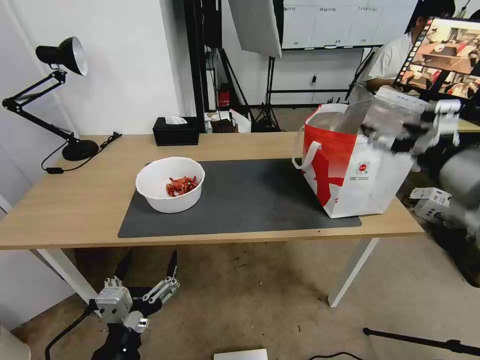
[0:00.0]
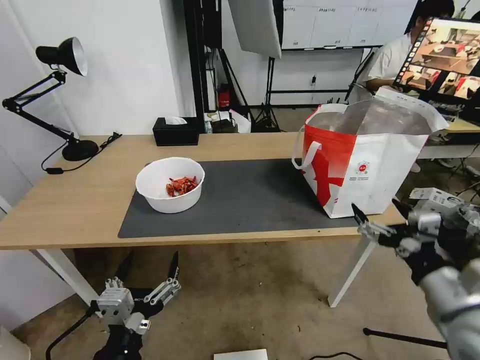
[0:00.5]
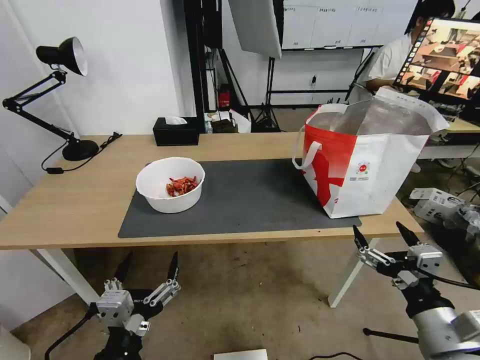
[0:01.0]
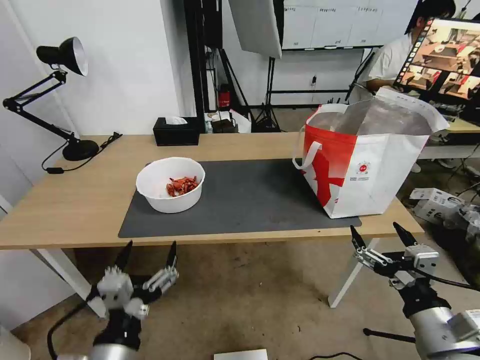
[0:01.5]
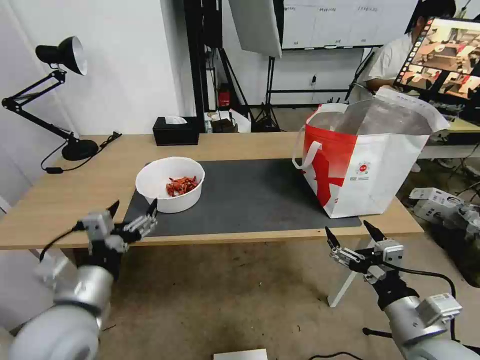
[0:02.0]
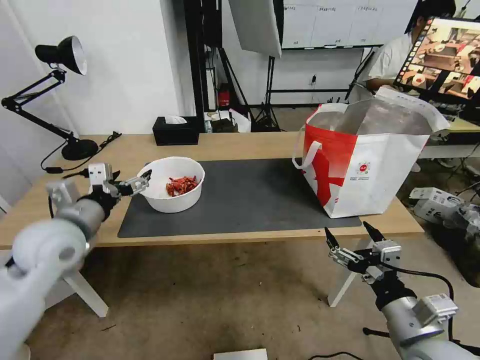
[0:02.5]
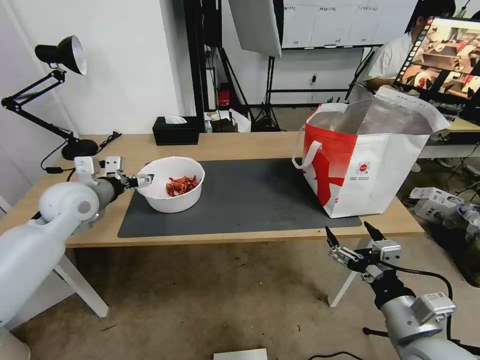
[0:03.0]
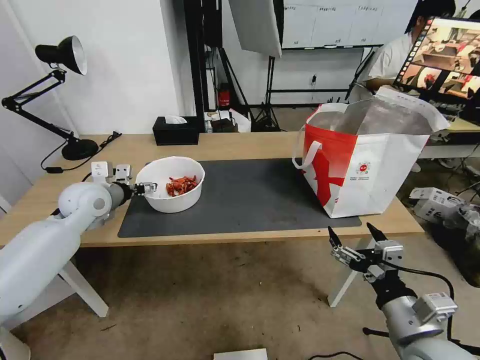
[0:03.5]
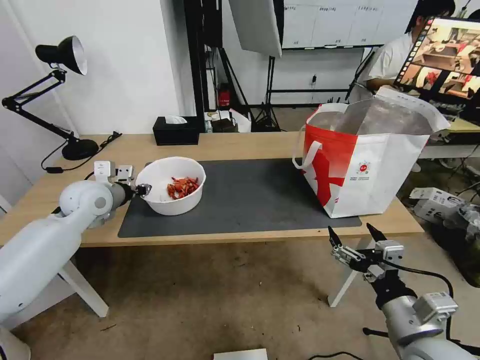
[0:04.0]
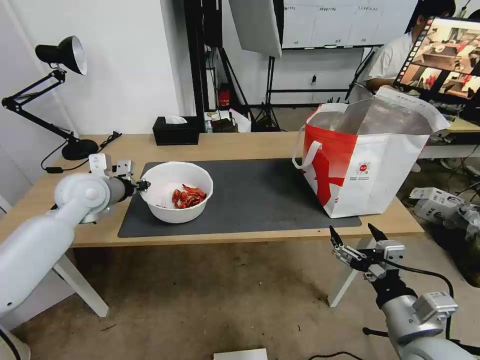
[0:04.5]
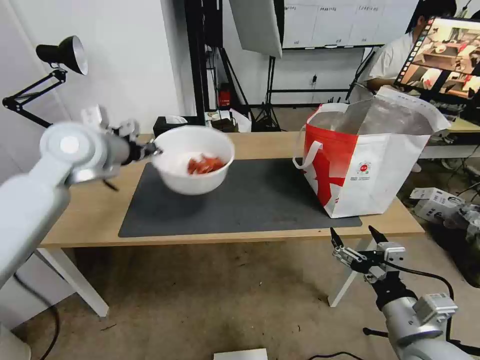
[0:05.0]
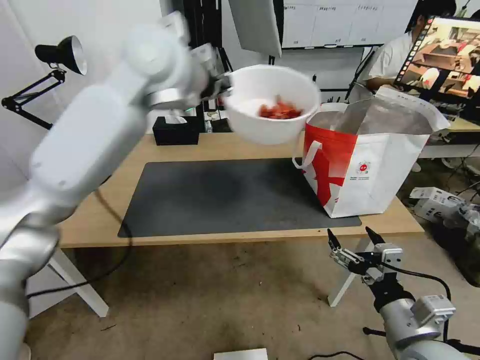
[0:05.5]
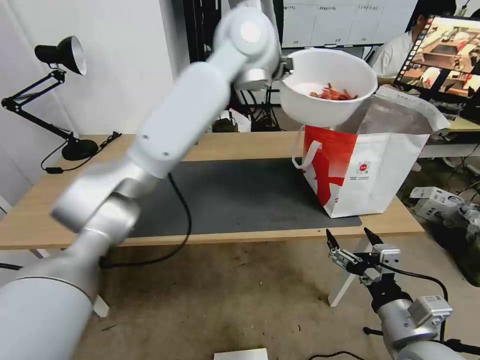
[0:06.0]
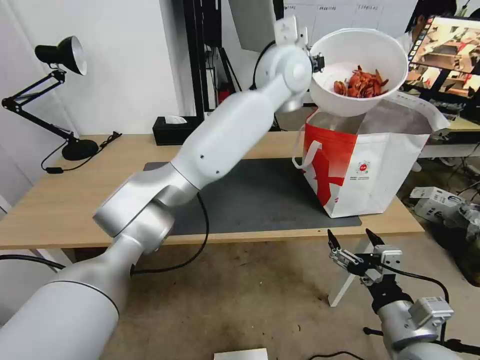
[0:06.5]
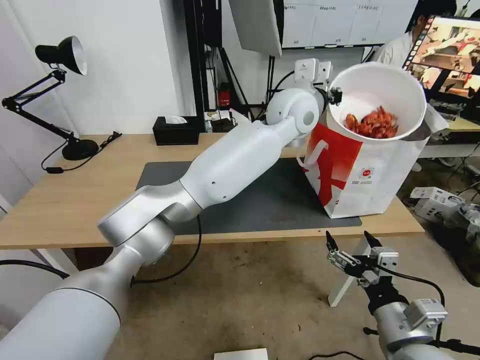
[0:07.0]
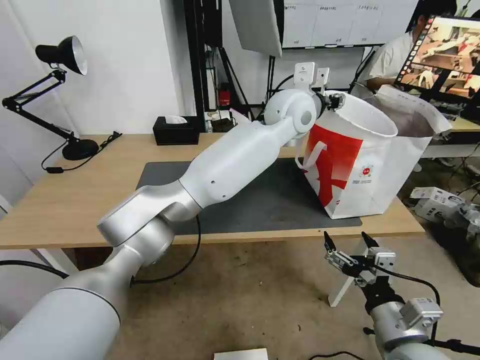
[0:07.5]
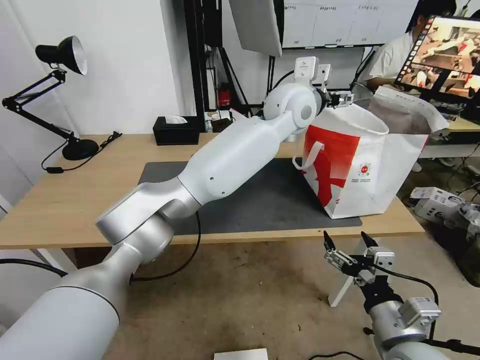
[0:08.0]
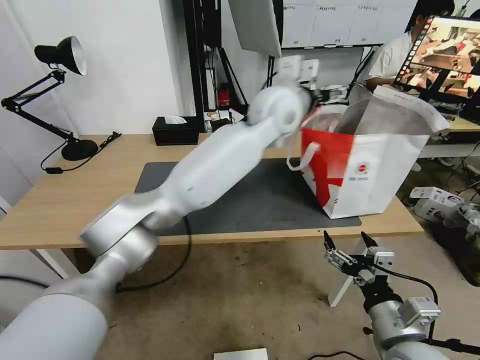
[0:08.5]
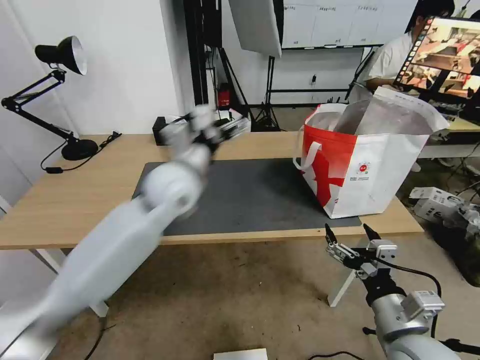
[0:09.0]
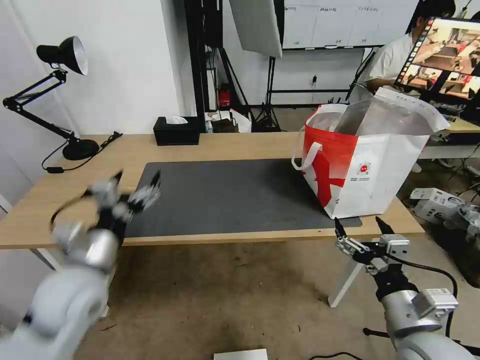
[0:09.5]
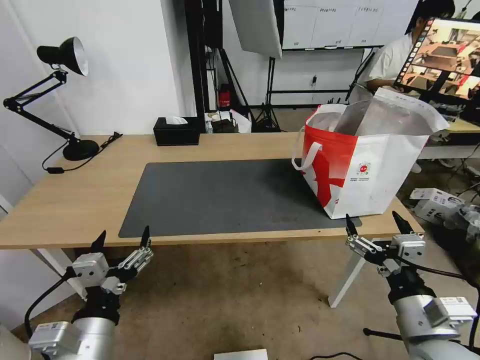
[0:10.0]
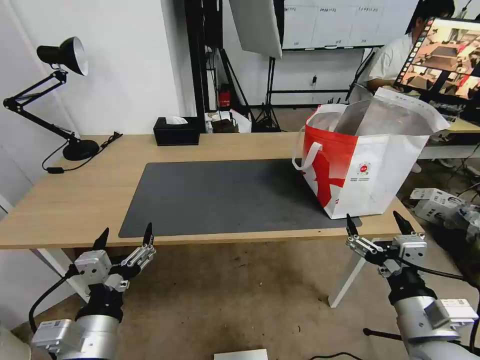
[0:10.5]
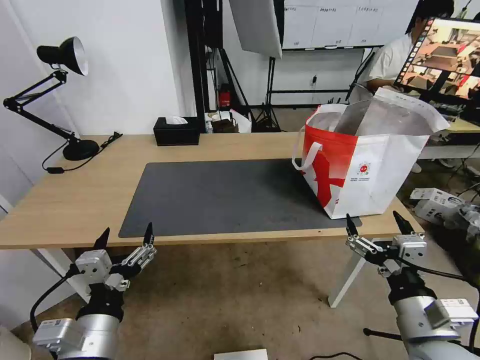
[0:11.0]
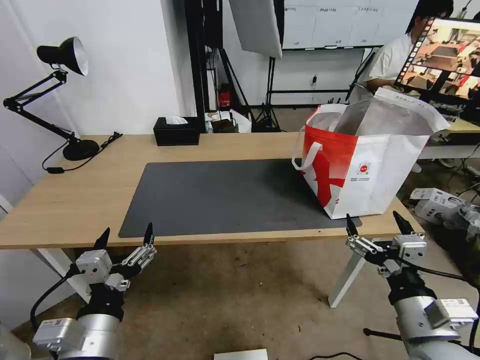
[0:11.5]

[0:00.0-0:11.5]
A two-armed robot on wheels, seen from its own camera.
Task of the whole recording: Pick up the trash from the table and place it into the takeout bag.
0:00.0 to 0:02.0: The left gripper heads forward, to the left and upward, covering roughly 15 cm, while the right gripper is displaced downward and backward by roughly 25 cm.
0:02.0 to 0:04.0: The left gripper heads forward, covering roughly 25 cm, and closes its fingers.
0:04.0 to 0:06.0: The left gripper is displaced to the right and upward by approximately 40 cm.
0:06.0 to 0:07.5: The left gripper moves downward and to the right, about 15 cm, and opens its fingers.
0:07.5 to 0:09.5: The left gripper heads to the left, backward and downward, covering roughly 50 cm, and opens up.
0:09.5 to 0:11.5: The left gripper heads backward and to the right, covering roughly 10 cm.

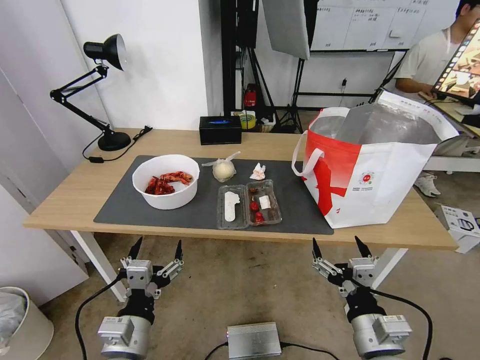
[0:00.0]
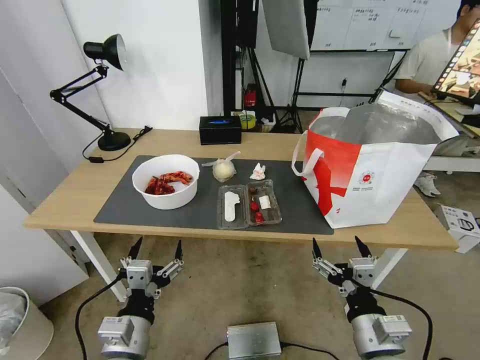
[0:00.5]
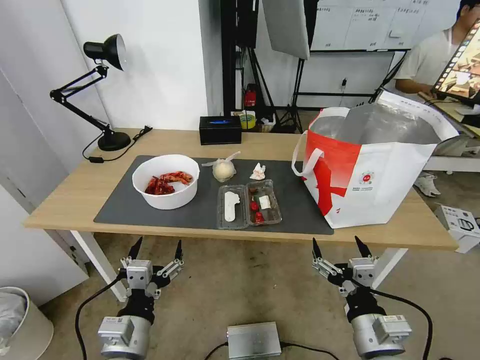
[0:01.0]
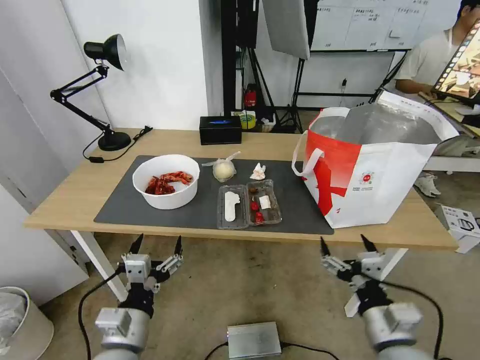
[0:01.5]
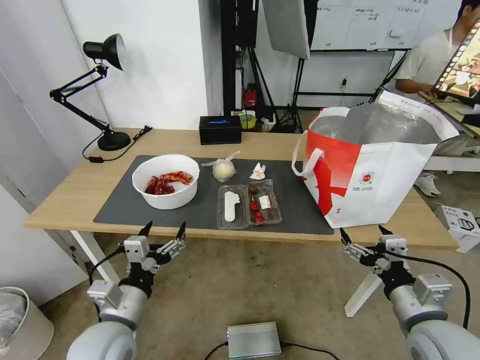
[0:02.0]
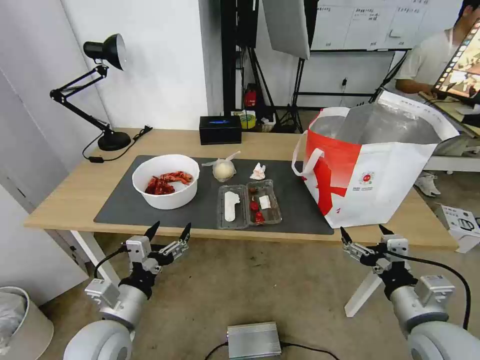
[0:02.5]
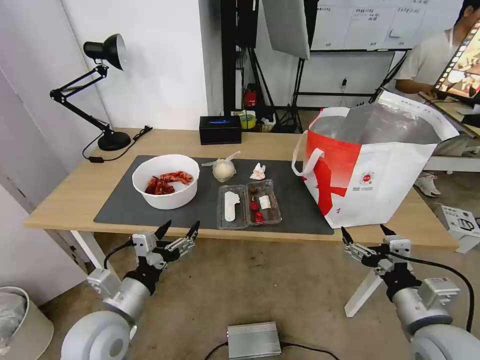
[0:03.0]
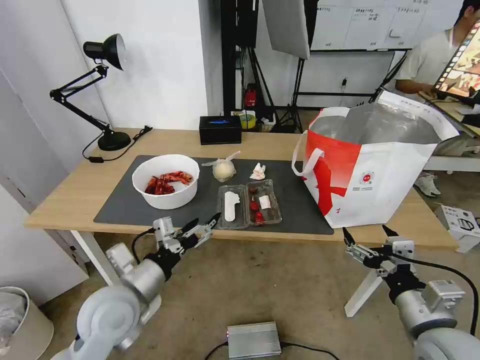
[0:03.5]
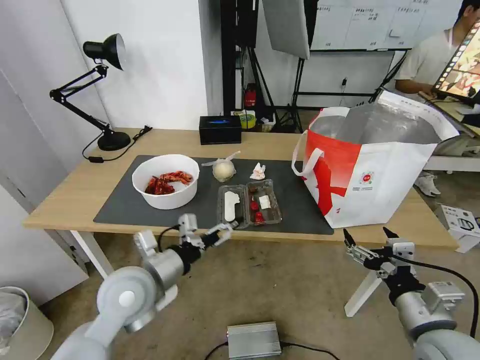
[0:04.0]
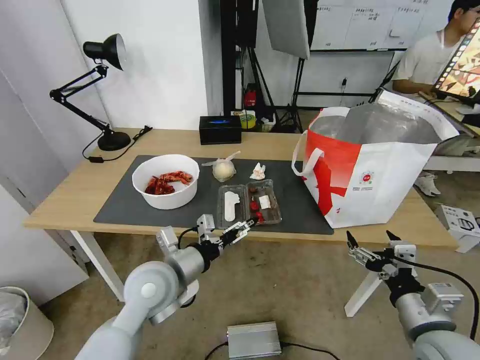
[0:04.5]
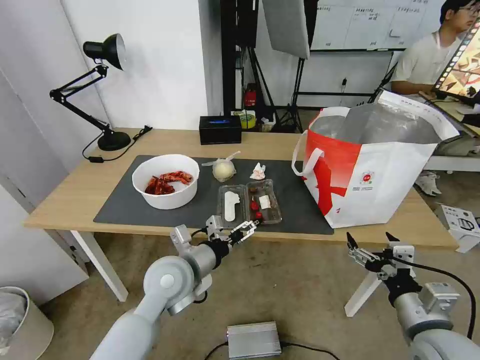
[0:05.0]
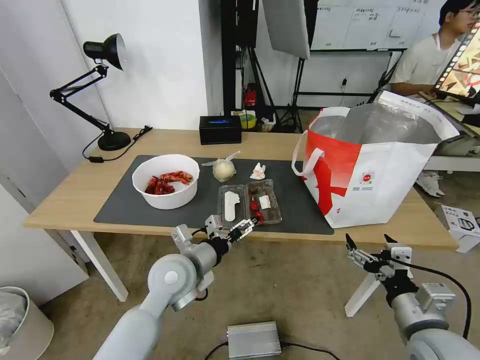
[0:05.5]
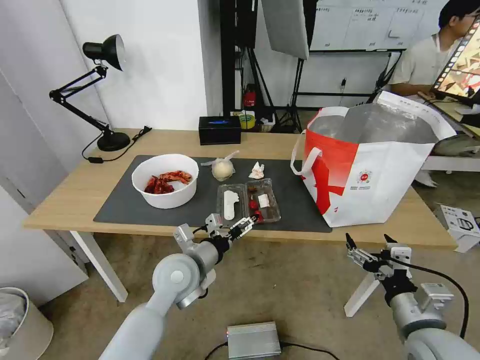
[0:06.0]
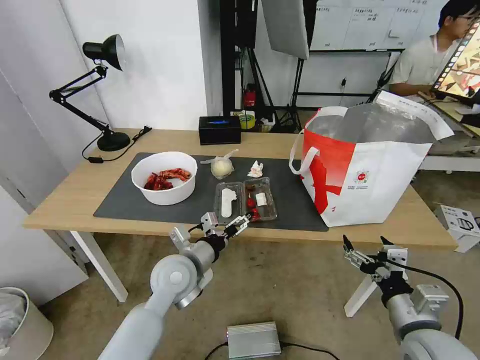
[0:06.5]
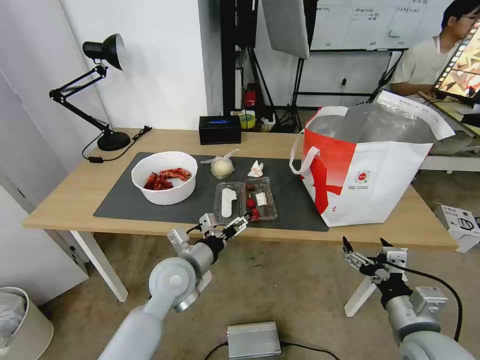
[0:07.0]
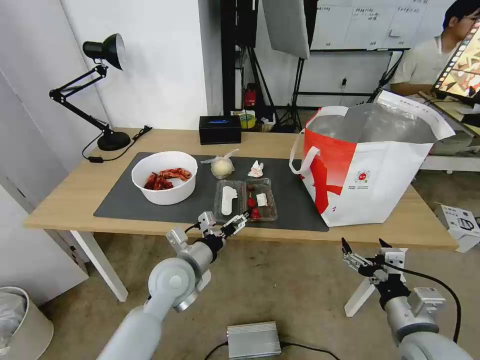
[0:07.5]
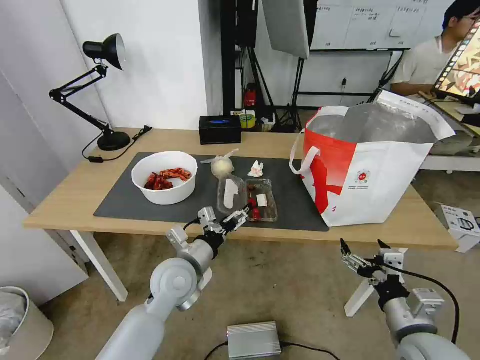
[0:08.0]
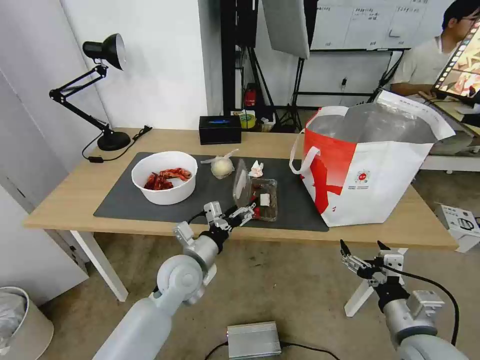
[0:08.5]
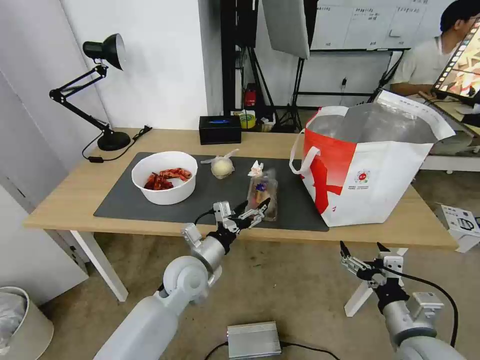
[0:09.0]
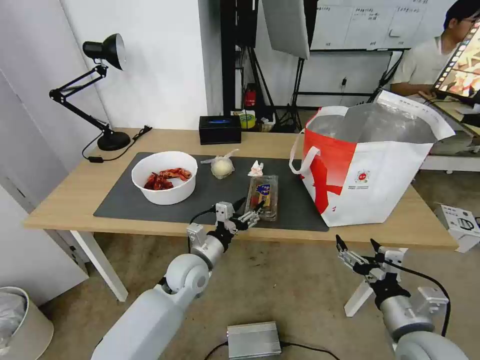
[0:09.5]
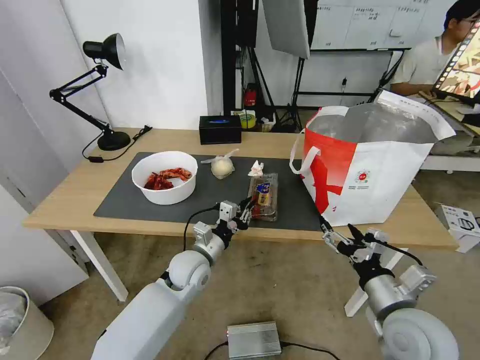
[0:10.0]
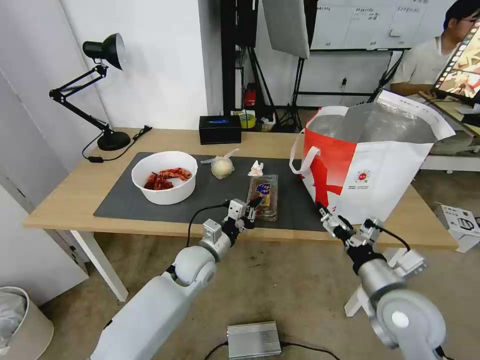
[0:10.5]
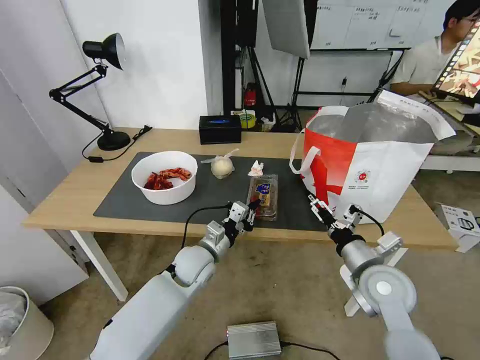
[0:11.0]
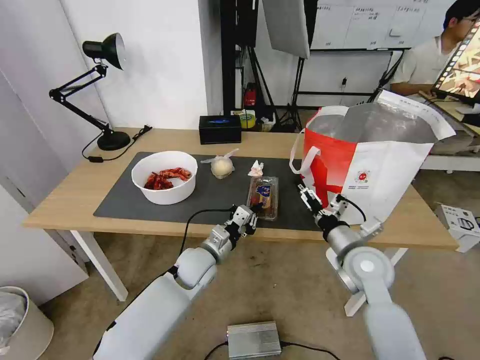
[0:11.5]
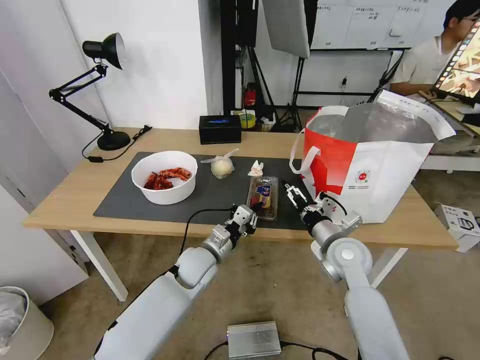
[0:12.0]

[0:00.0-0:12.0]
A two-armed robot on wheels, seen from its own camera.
Task of the whole recording: Pick up the trash from the table and place it into the takeout bag.
0:02.0 to 0:04.0: The left gripper travels forward by some 10 cm.
0:04.0 to 0:06.0: The left gripper is displaced to the right by about 10 cm.
0:06.0 to 0:08.0: The grippers make only small movements.
0:08.0 to 0:10.0: The left gripper is displaced downward by about 5 cm, and closes its fingers.
0:10.0 to 0:12.0: The right gripper heads forward, covering approximately 15 cm.

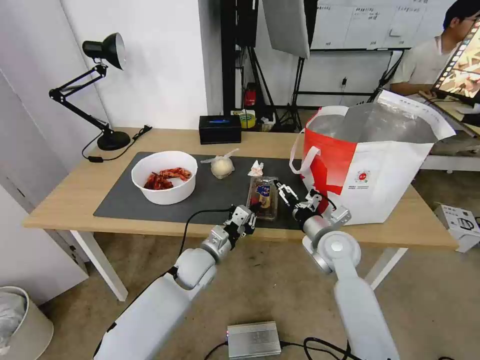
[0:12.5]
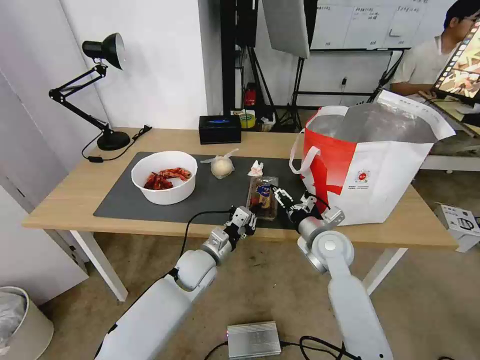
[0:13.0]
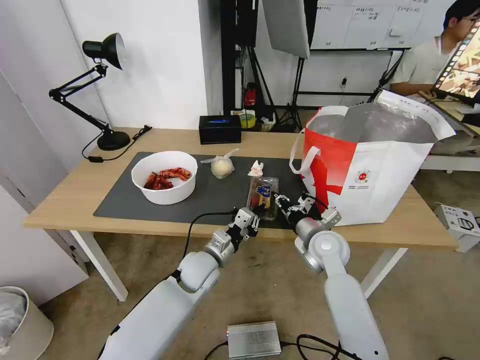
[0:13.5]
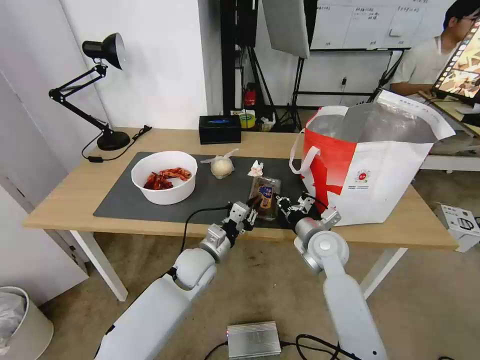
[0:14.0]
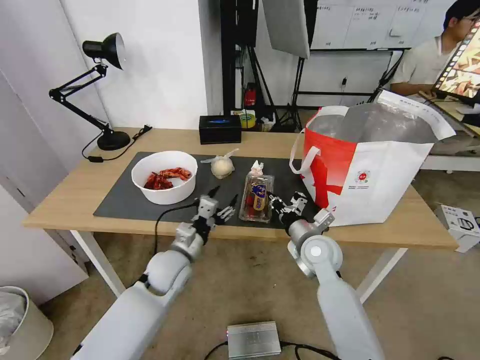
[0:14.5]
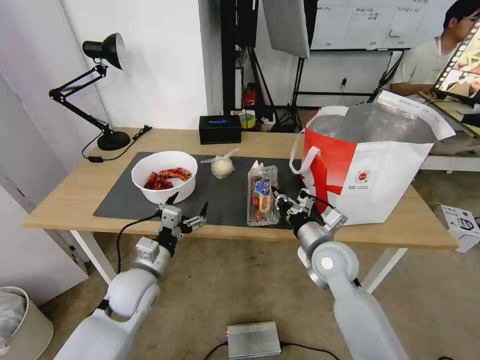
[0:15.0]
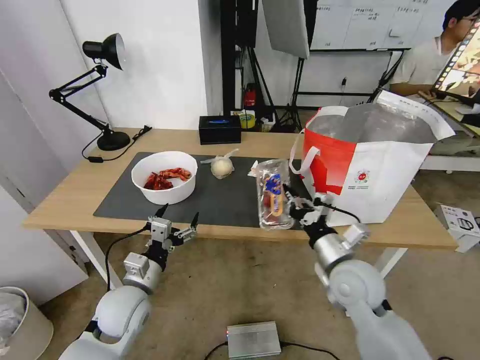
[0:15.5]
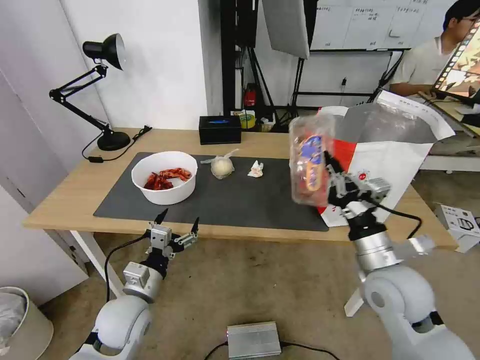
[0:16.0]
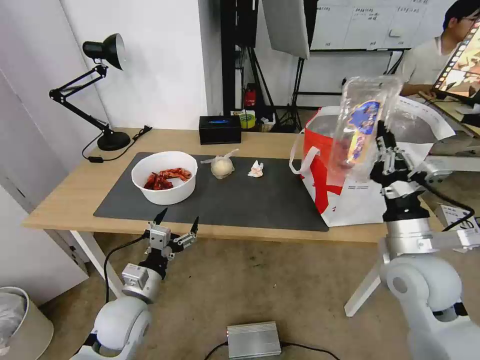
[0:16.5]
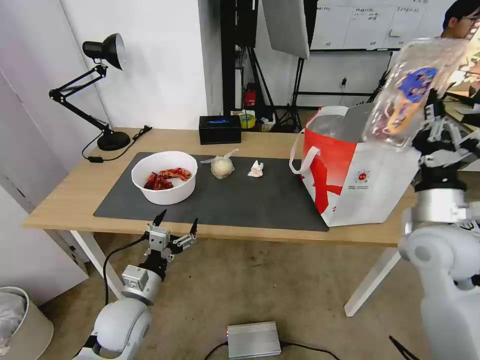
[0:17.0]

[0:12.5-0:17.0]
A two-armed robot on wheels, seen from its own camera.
Task of the whole recording: Pick up the trash from the table and place it into the takeout bag.
0:12.5 to 0:14.5: The left gripper ends up approximately 5 cm from where it was, and opens. The right gripper closes up.
0:14.5 to 0:17.0: The left gripper travels backward and to the left by roughly 15 cm, while the right gripper is displaced upward, to the right and backward by about 20 cm.
